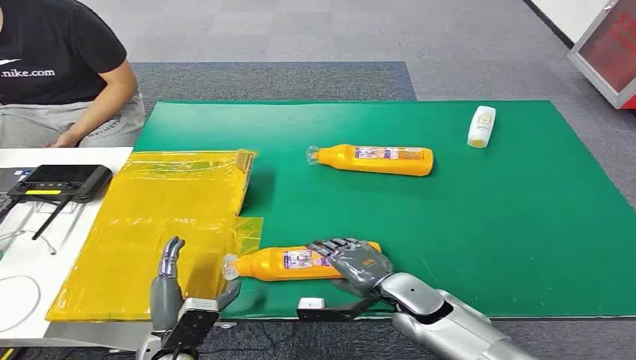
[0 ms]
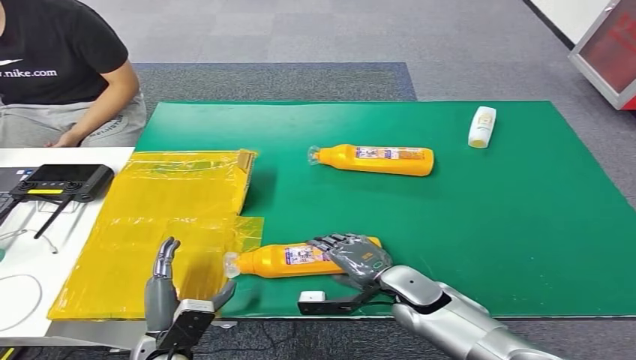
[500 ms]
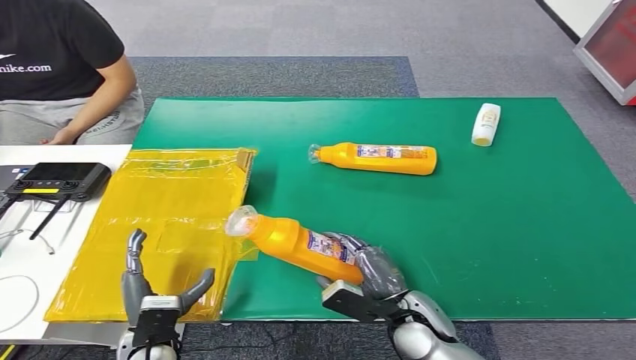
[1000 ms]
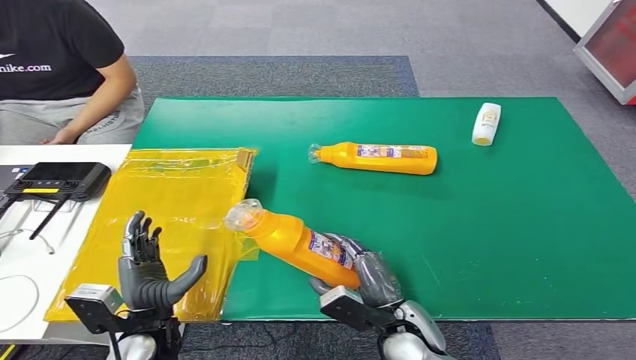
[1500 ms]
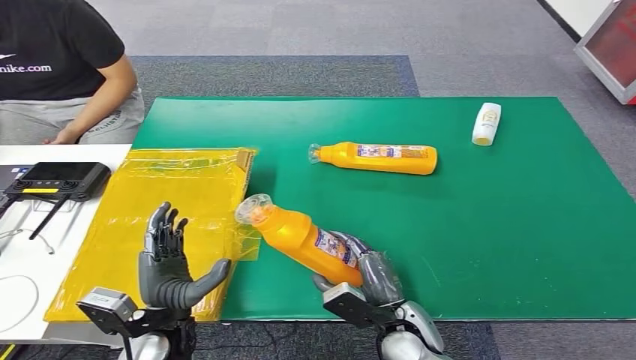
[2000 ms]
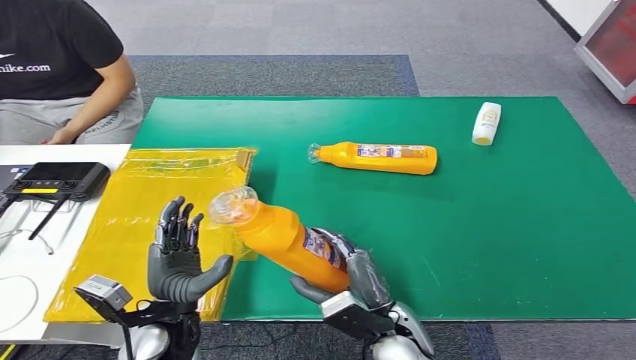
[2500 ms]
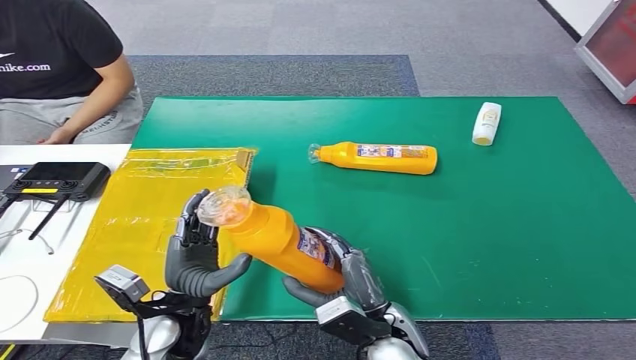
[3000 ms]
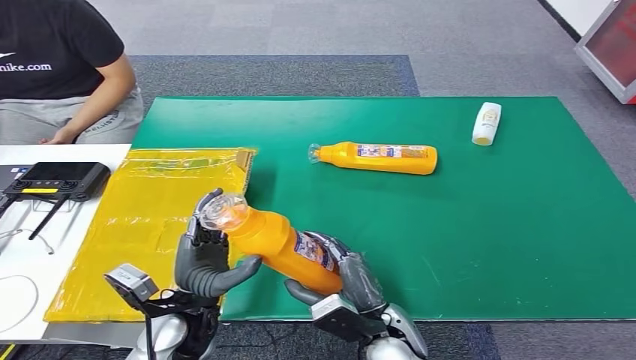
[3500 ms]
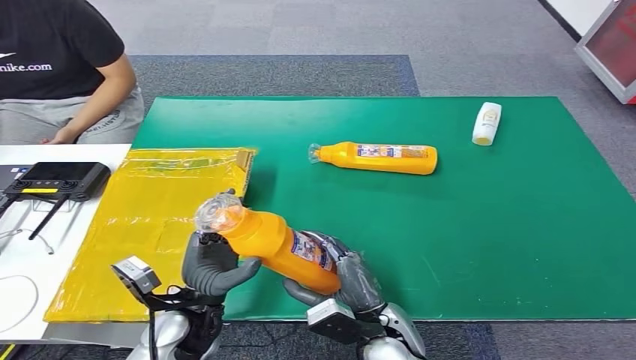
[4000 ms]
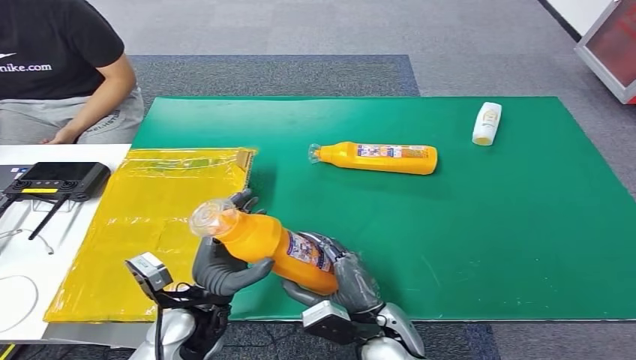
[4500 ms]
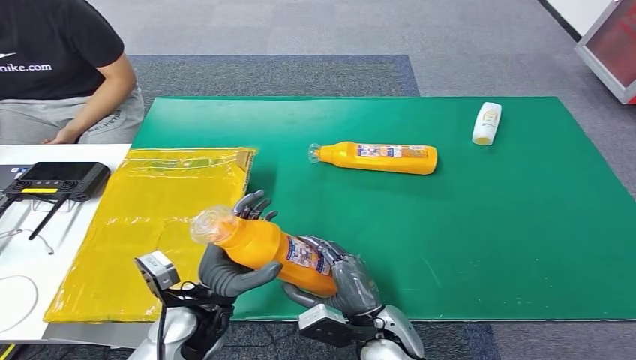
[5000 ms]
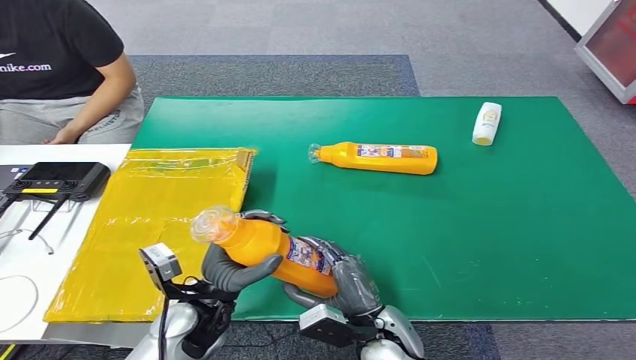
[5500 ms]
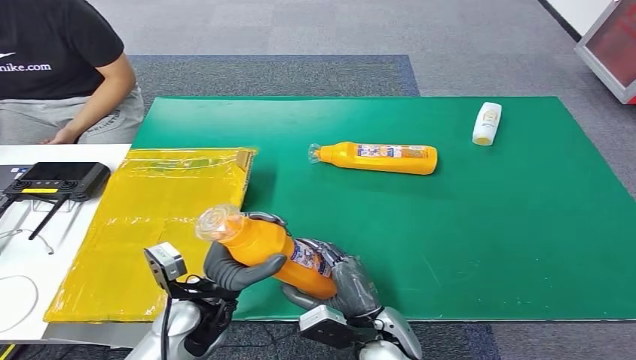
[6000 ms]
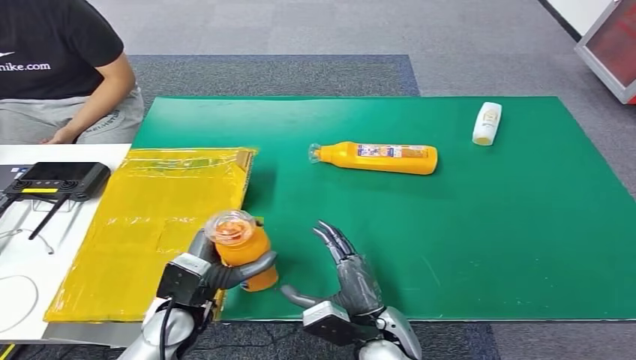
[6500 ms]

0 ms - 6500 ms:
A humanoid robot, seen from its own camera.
Step, 0 ms - 3000 ms: Pick up the bottle from the table.
Step, 3500 ms - 6500 ms: Turn the bottle to the front side.
